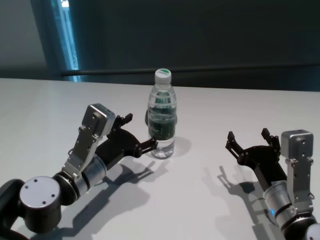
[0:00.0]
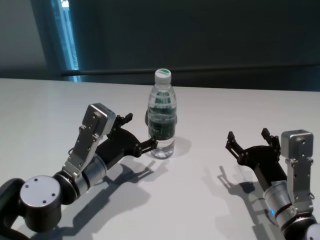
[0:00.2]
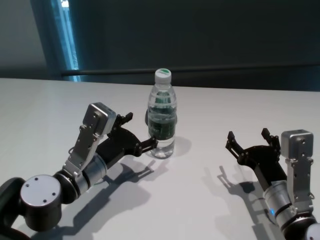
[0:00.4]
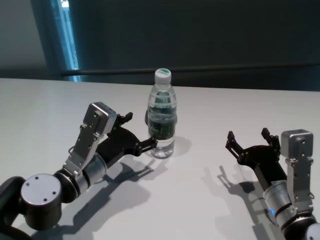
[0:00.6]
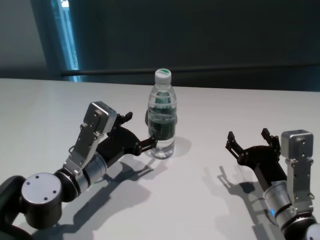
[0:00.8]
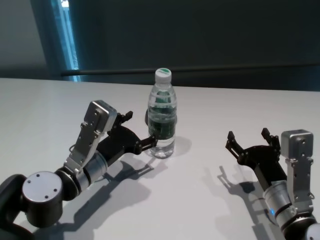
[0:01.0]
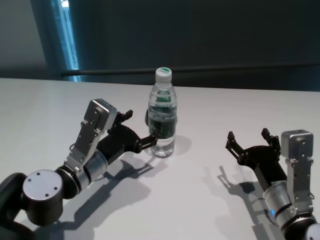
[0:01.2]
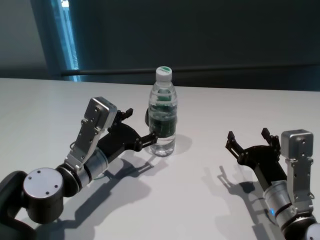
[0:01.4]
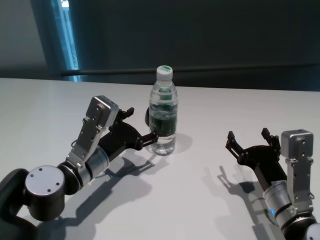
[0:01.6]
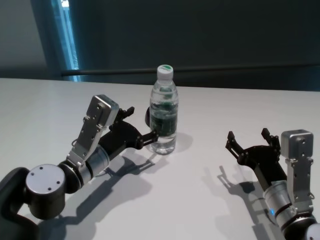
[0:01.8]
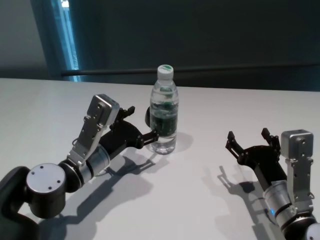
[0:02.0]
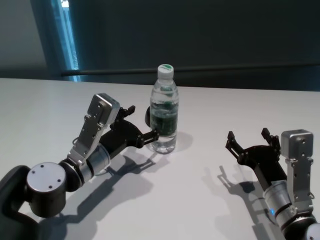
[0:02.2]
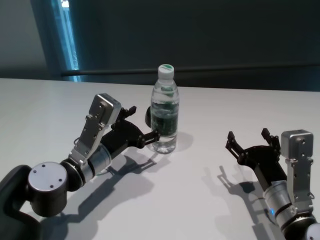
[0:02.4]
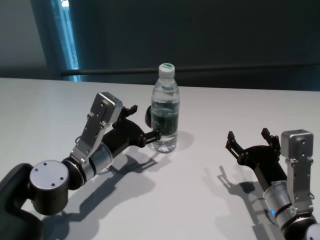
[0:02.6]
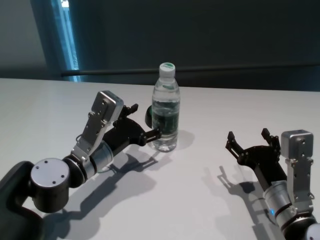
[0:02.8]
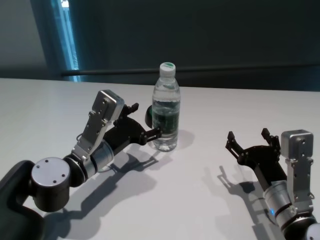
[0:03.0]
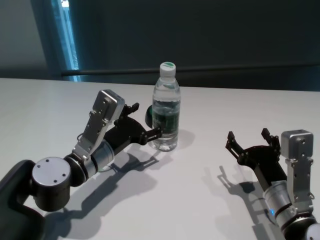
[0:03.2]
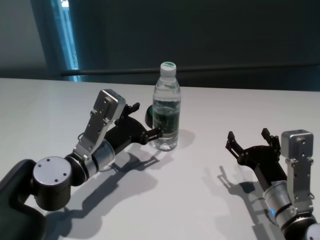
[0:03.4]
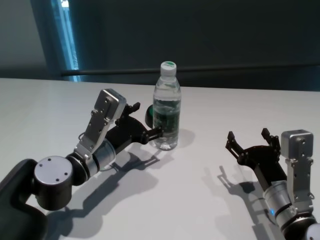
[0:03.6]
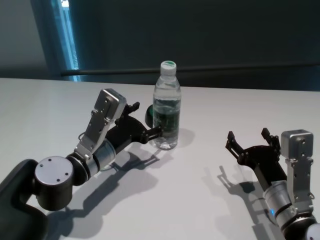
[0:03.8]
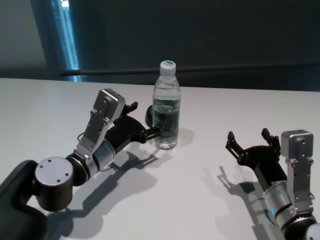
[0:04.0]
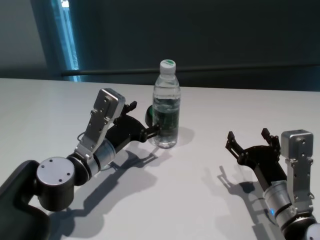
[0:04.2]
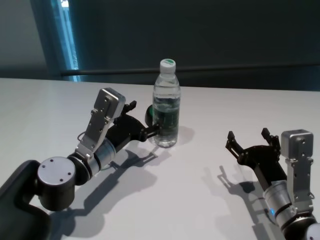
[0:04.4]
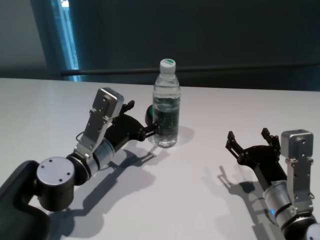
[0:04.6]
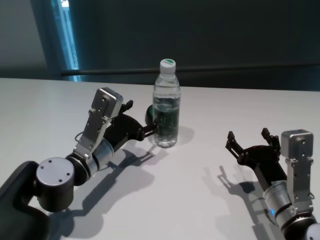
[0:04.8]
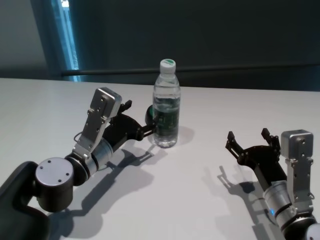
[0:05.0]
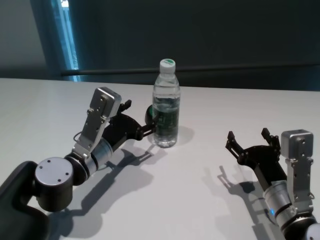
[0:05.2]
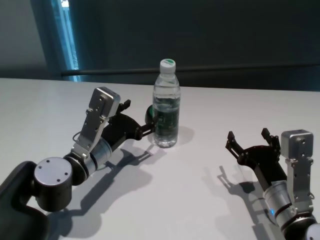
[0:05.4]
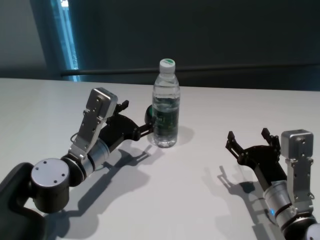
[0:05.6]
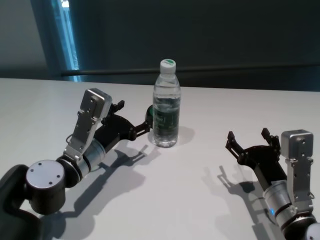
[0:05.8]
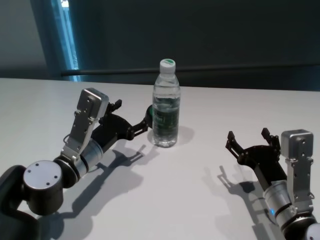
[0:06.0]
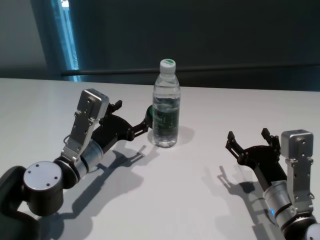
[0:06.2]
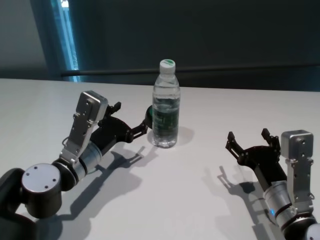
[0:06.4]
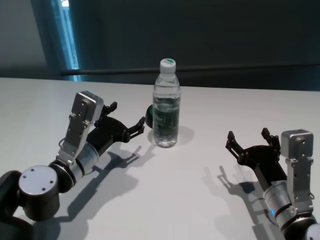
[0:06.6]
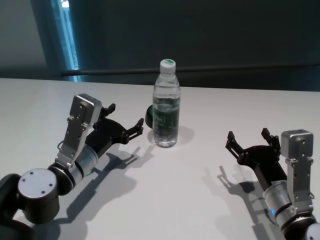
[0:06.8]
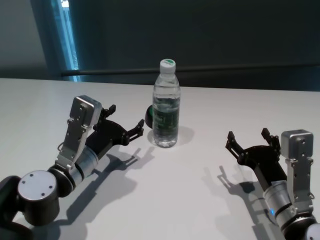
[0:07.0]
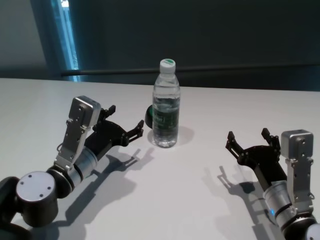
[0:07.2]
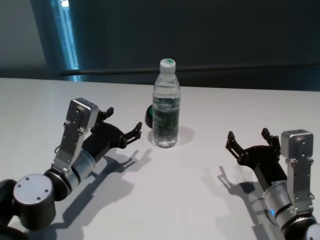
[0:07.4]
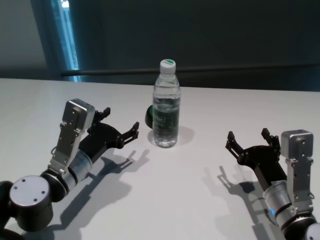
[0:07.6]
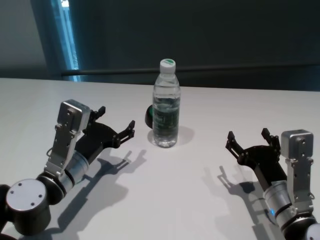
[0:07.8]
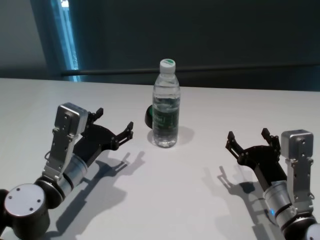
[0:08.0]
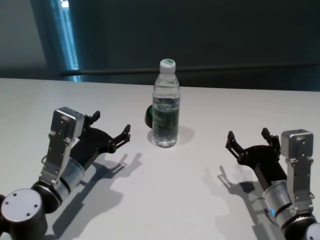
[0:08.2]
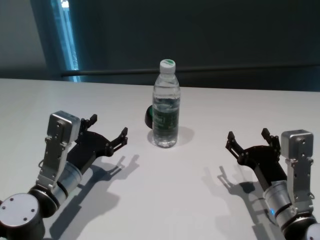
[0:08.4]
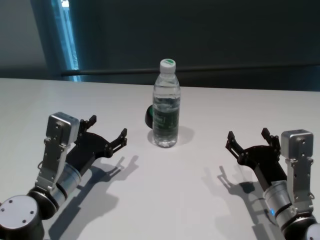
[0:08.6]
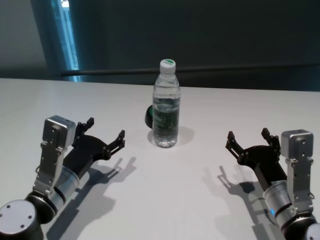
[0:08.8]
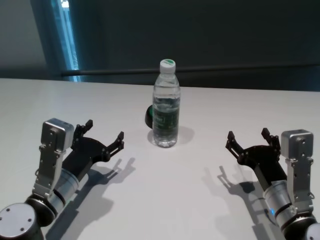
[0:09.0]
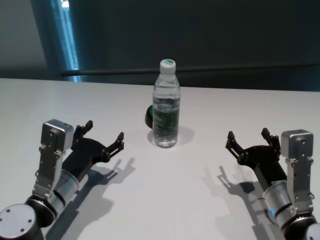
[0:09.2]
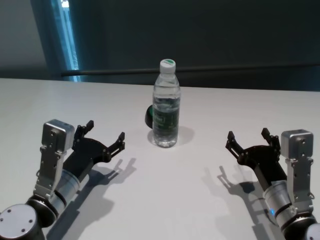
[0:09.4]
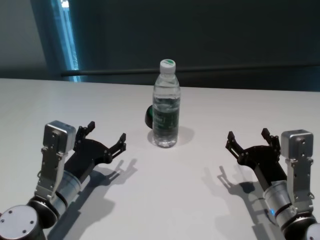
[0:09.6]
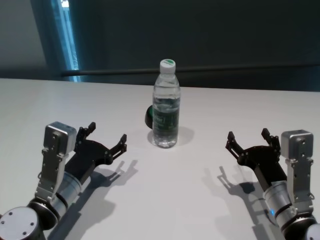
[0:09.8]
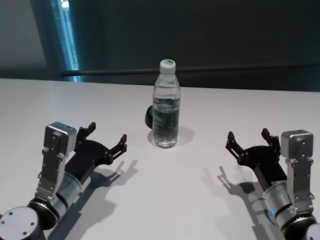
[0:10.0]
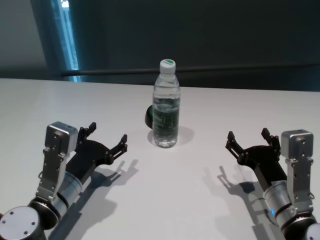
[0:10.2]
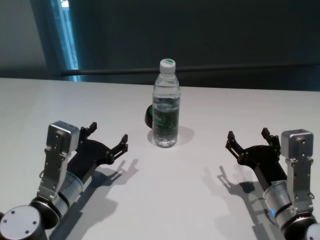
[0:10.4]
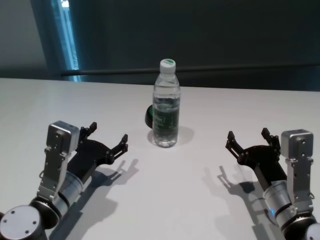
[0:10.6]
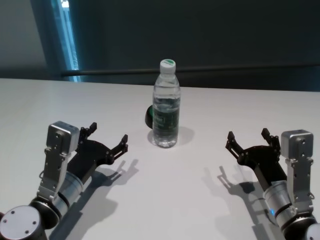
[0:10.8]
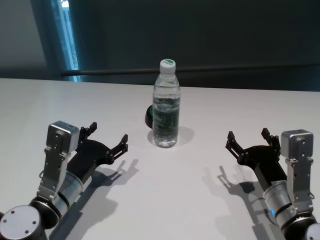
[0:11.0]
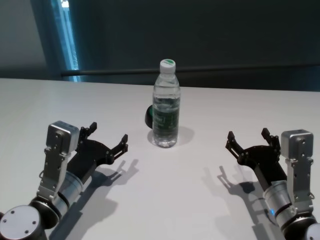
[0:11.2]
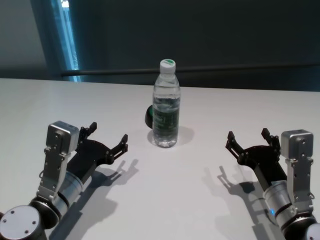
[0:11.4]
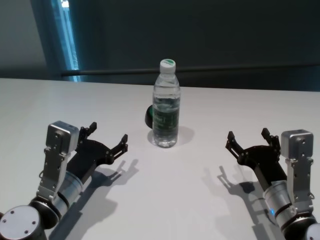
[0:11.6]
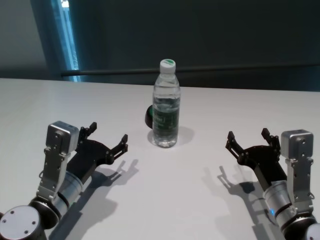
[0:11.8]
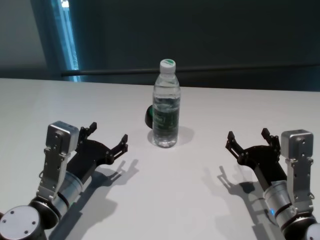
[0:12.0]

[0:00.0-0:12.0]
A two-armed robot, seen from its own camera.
Task of the whole recording: return to a safe position after touching an obstacle with your arm on the white table.
Step, 0:00.0 to 0:06.8: Touch the bottle with left gripper.

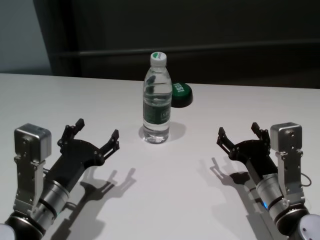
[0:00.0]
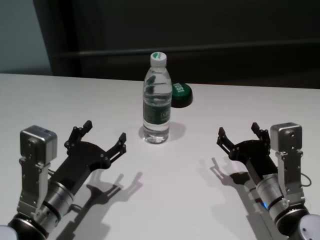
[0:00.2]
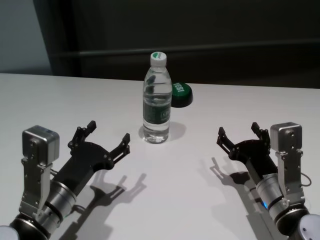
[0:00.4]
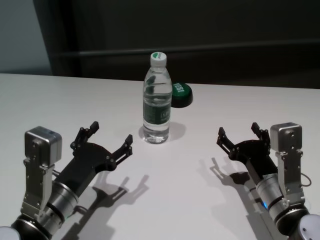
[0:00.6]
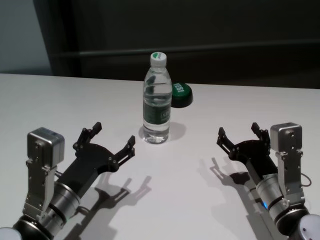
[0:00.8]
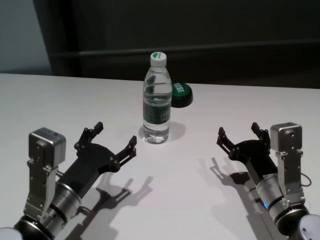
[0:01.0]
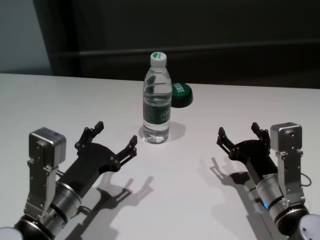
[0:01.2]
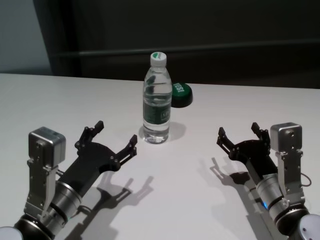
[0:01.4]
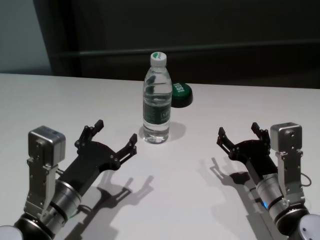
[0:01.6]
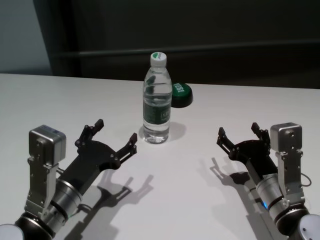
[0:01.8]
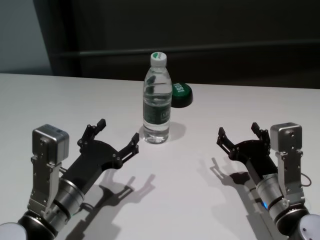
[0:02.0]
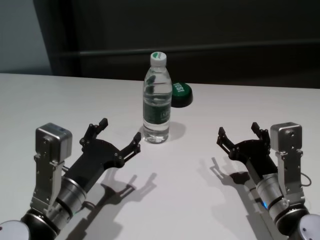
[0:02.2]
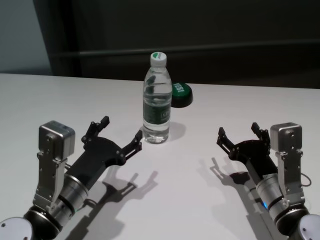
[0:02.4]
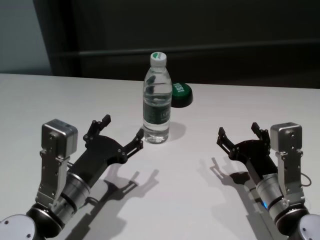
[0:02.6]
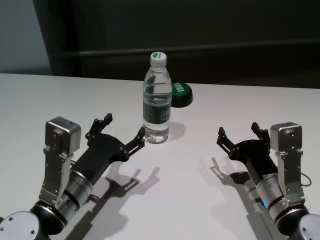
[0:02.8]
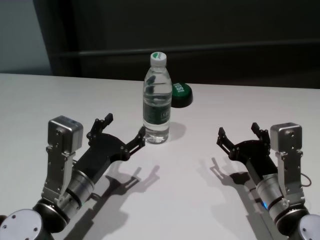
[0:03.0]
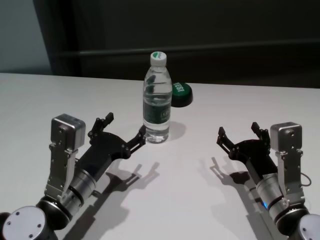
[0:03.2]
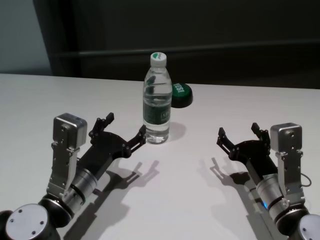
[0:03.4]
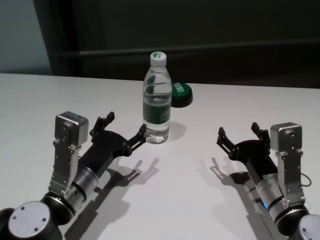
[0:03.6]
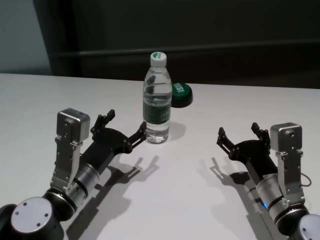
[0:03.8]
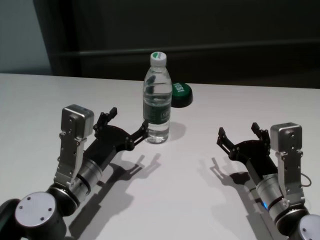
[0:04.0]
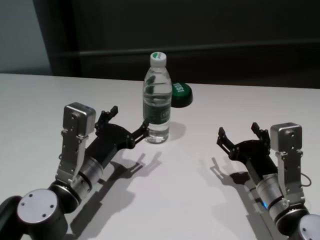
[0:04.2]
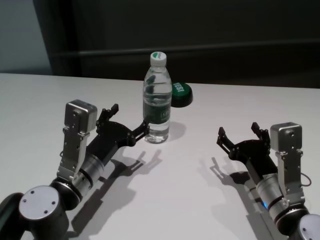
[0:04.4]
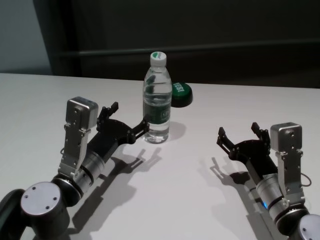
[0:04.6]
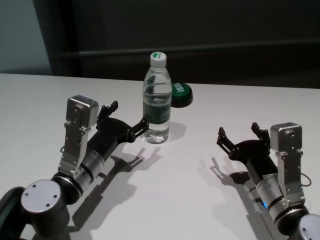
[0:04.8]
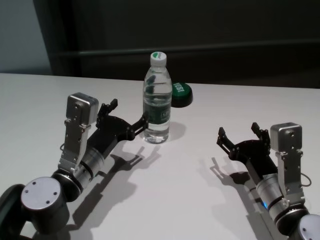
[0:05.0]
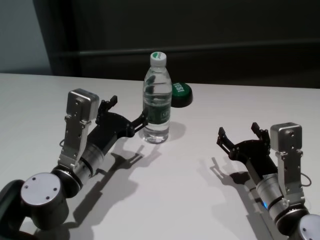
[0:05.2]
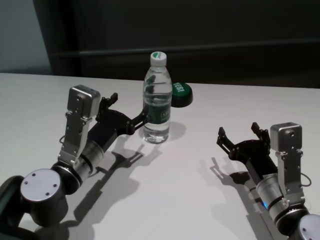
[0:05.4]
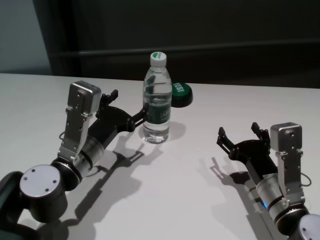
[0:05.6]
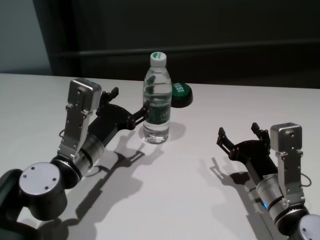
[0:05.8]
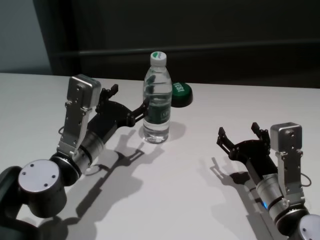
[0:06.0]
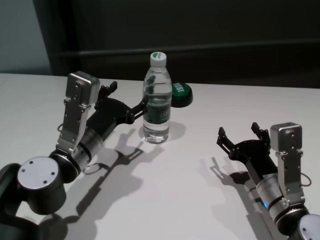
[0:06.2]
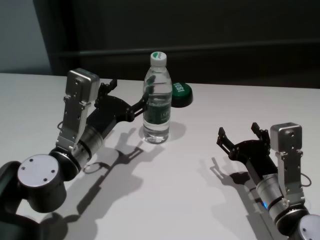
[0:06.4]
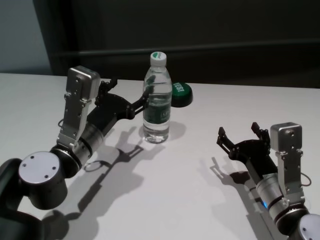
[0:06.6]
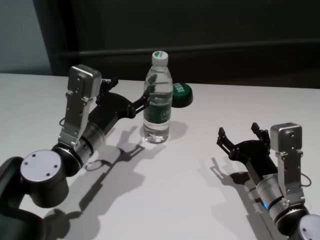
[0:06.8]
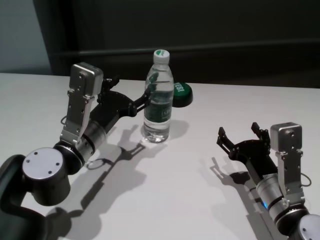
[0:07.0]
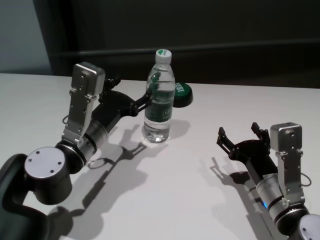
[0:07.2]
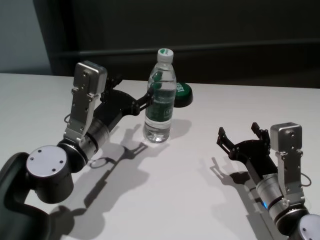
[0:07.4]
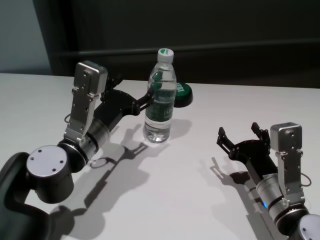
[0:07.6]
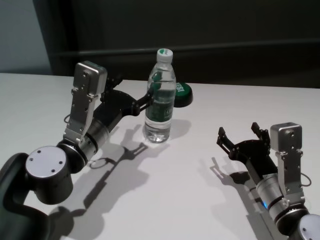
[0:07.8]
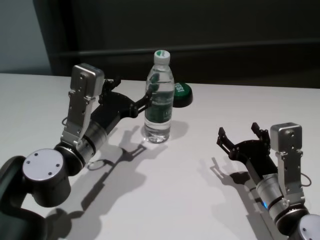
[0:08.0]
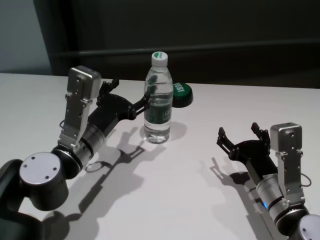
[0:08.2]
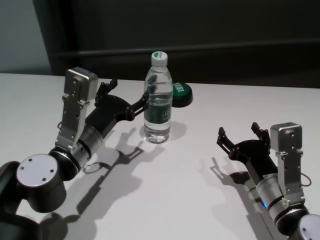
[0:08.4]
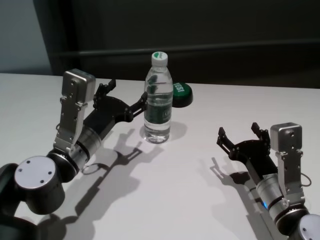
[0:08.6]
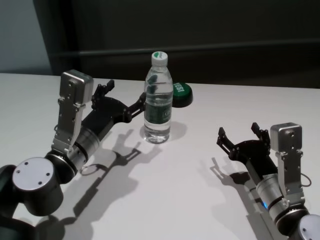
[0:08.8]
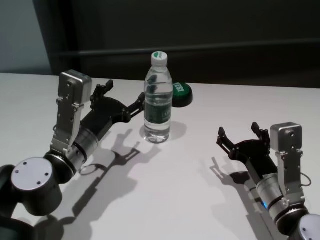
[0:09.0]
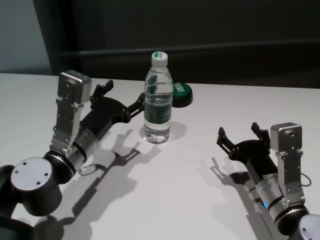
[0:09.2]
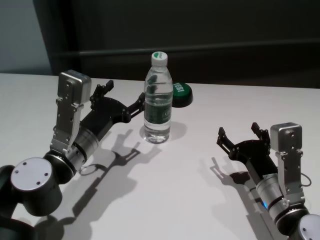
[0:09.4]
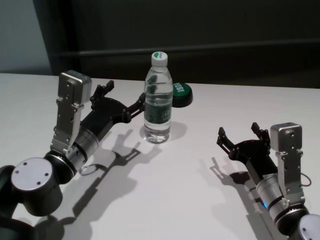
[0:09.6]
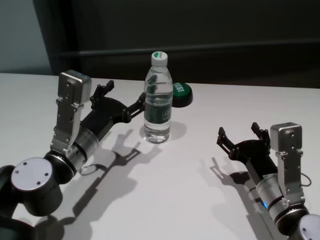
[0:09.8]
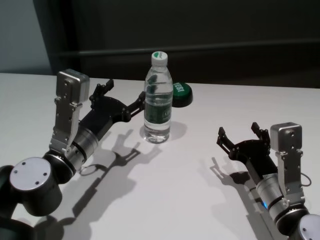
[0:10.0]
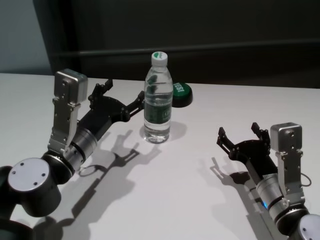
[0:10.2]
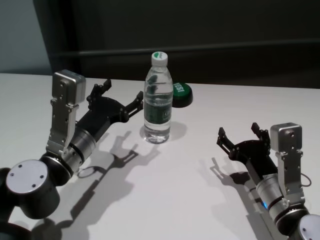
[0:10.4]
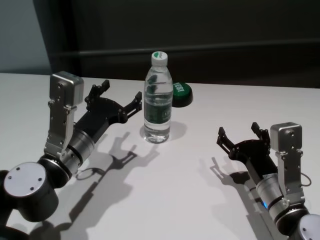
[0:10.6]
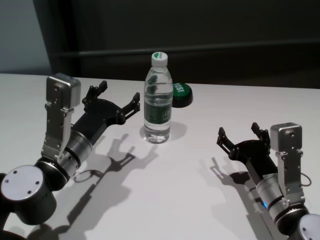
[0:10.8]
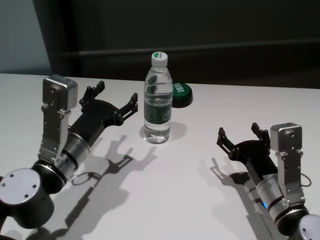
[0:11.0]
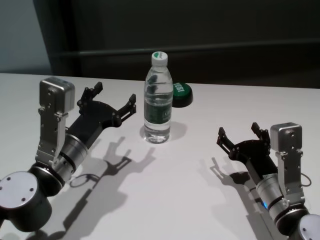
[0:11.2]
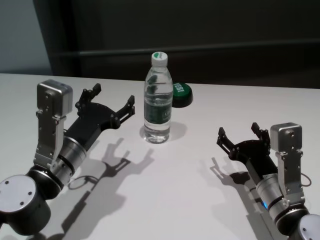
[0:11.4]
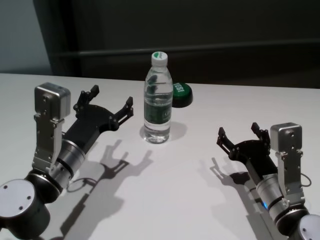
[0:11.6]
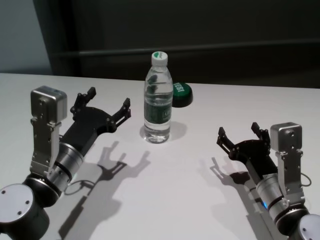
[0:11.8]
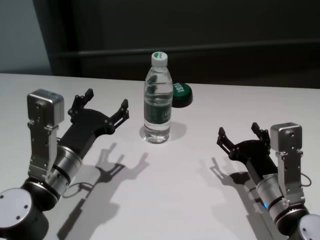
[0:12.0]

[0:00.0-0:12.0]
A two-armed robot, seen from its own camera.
Task of the whole recording: return to a safe position after touching an obstacle with your arm on the white table.
Step, 0:00.0 to 0:10.8: Touch the bottle with left gripper.
